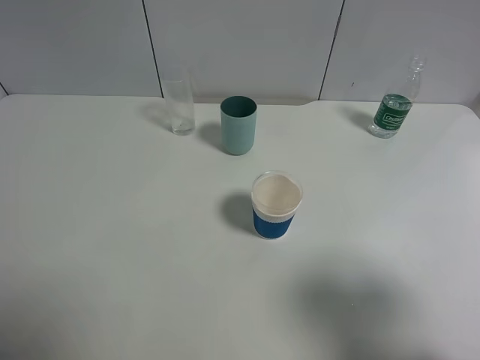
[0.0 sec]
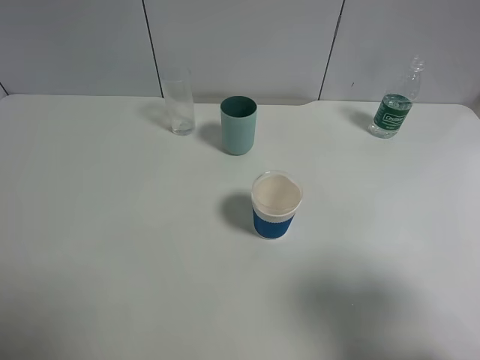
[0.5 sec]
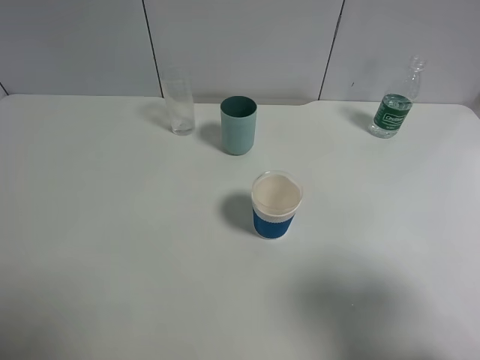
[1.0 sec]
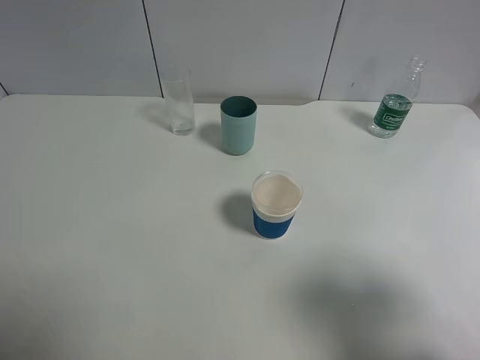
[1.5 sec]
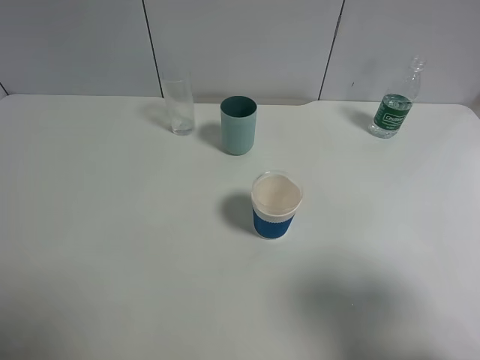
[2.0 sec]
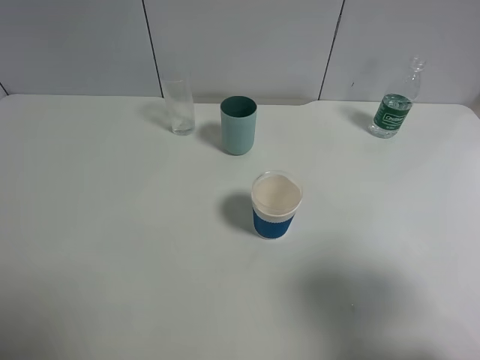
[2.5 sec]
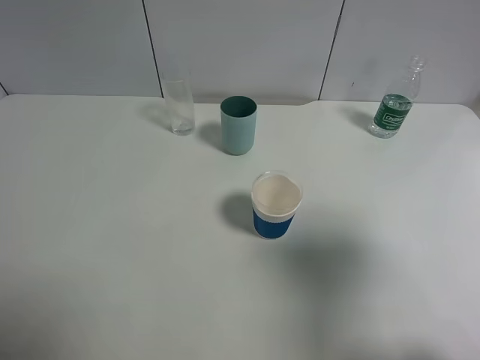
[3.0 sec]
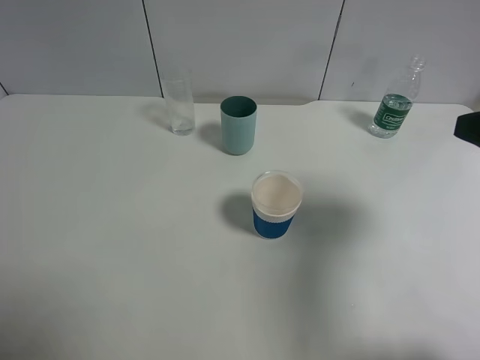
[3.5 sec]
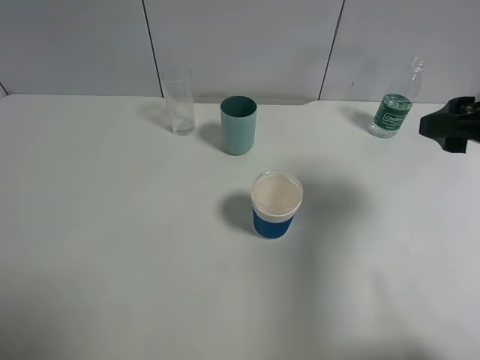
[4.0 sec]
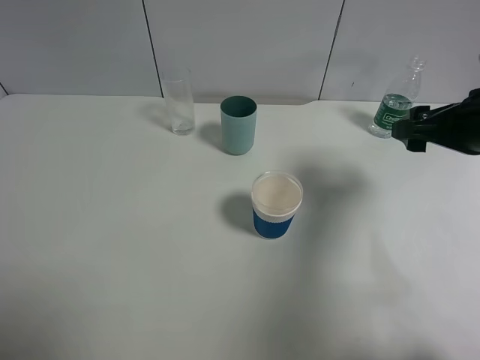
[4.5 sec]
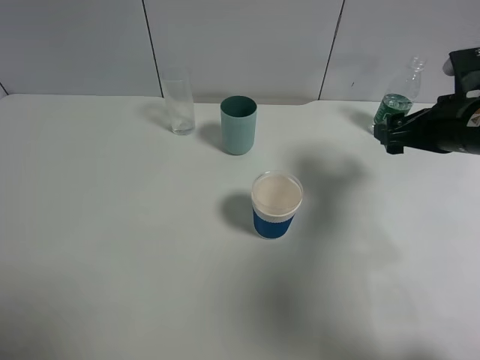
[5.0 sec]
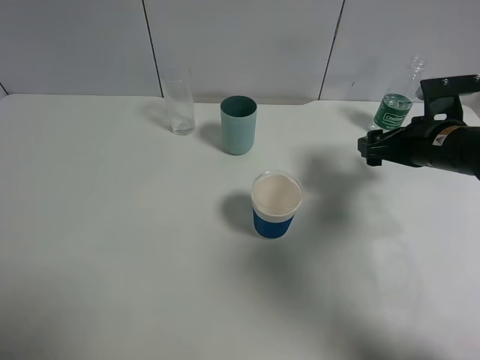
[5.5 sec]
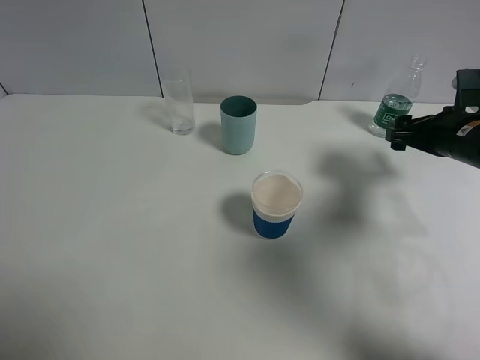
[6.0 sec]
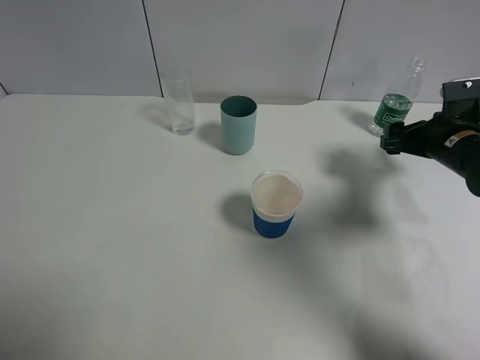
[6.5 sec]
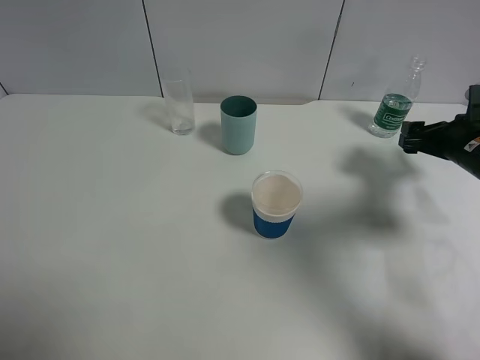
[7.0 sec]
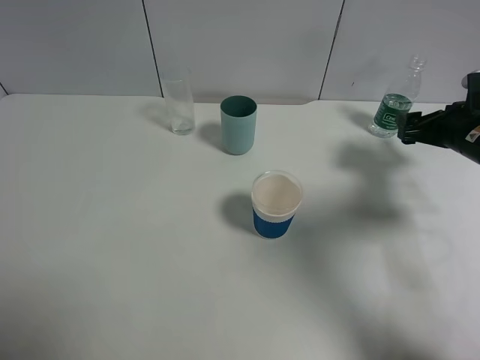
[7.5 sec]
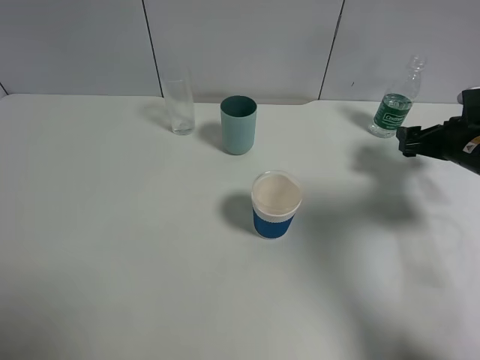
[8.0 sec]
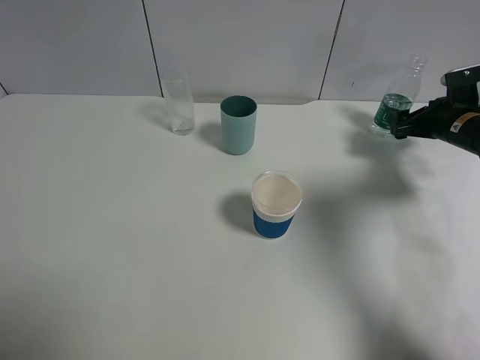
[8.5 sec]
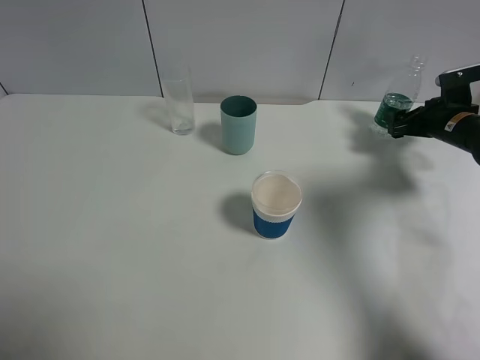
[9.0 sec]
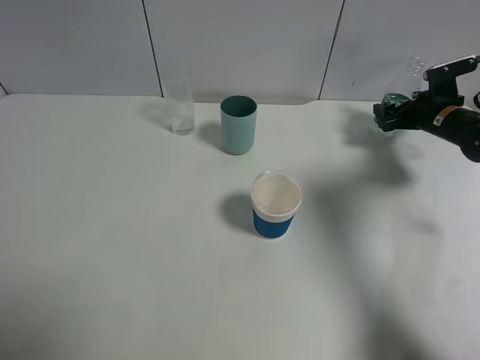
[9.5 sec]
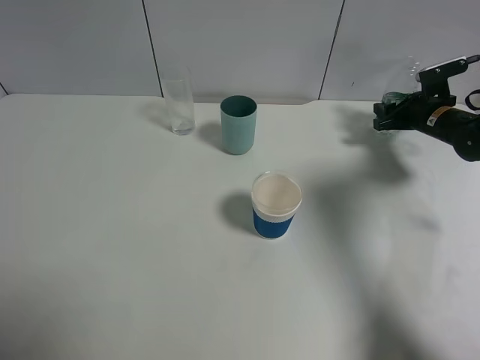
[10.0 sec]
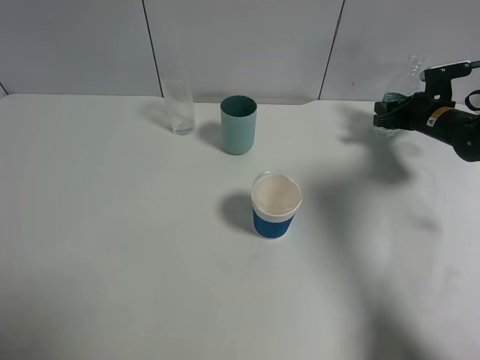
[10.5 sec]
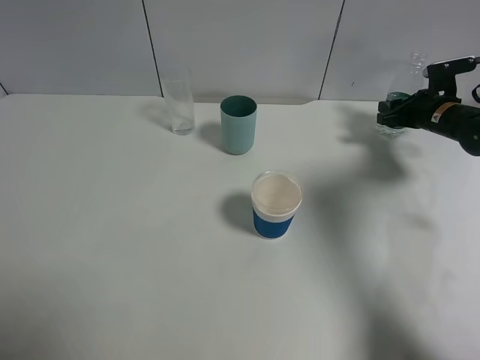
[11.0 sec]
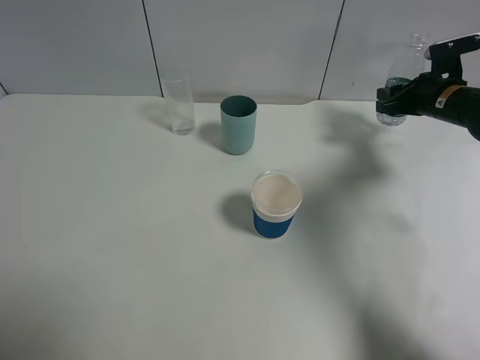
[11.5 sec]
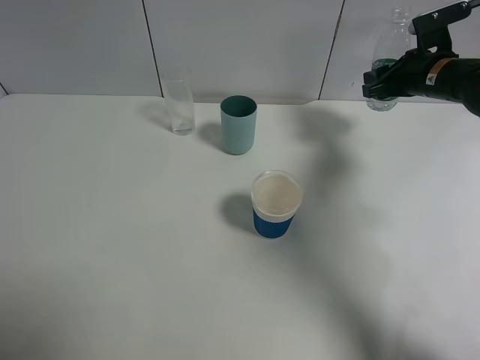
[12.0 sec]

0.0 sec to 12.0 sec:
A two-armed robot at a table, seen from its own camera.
Task of the whole recording: use a gripper to hold the bottle of the drink and pour it into a random cup.
Step, 0.0 sec to 10.0 sec: Grasp the mineral water bottle with the right gripper.
0.0 sec to 2.0 sec: Neither gripper changes place.
2.0 sec to 4.0 sec: The right gripper goes some 20 cm forward.
4.0 sec to 6.0 sec: The right gripper moves forward and downward, roughly 15 cm.
6.0 sec to 8.0 sec: The right gripper shifts some 10 cm to the right and downward.
8.0 sec to 10.0 sec: The right gripper shifts some 10 cm forward, and closes its fingers.
10.0 sec to 12.0 sec: The right gripper is displaced upward and to the left by some 10 cm.

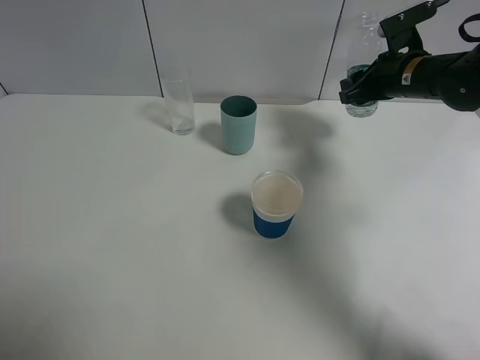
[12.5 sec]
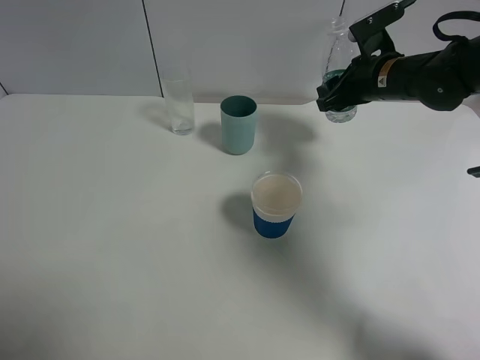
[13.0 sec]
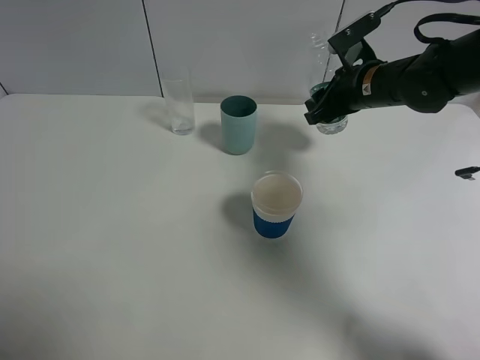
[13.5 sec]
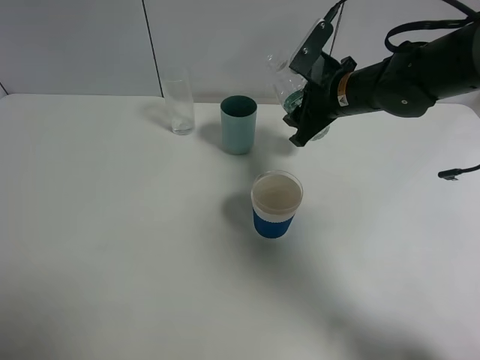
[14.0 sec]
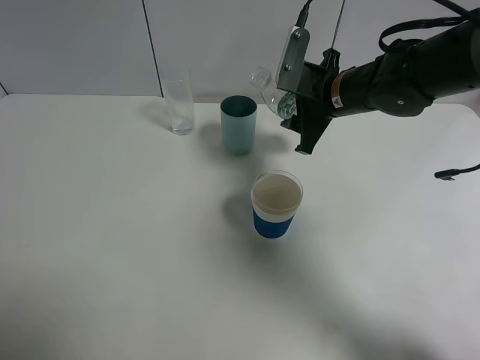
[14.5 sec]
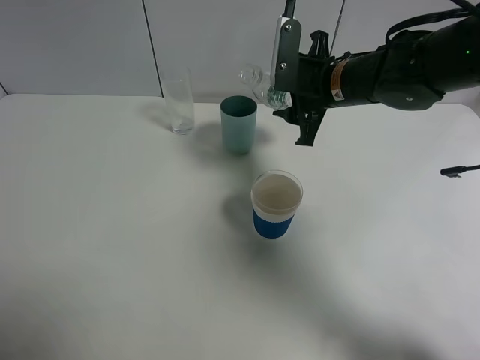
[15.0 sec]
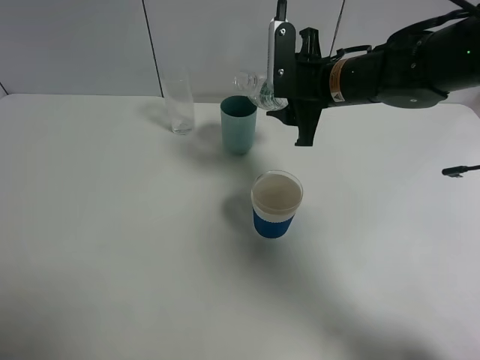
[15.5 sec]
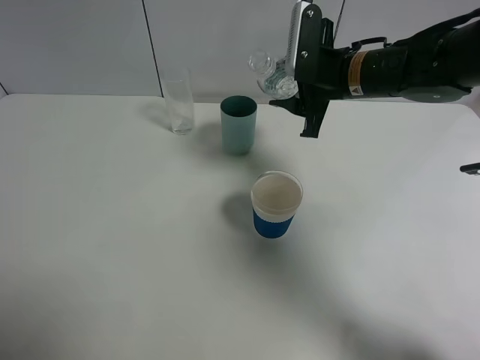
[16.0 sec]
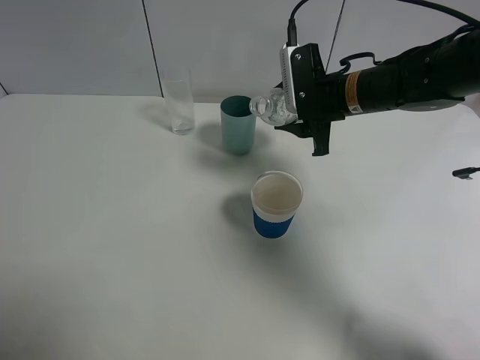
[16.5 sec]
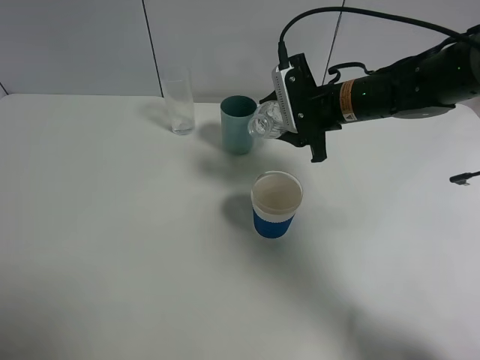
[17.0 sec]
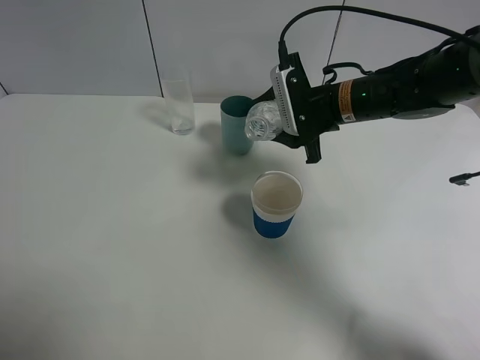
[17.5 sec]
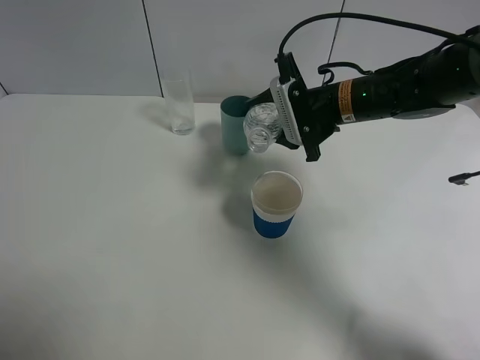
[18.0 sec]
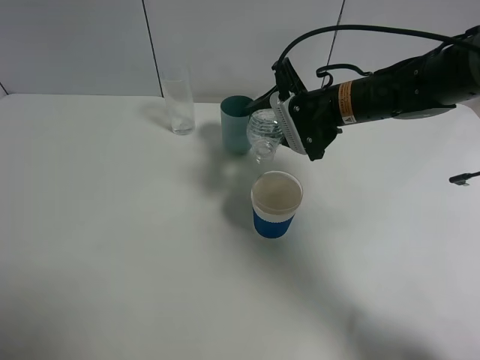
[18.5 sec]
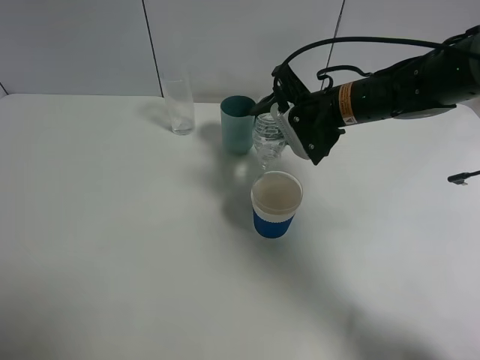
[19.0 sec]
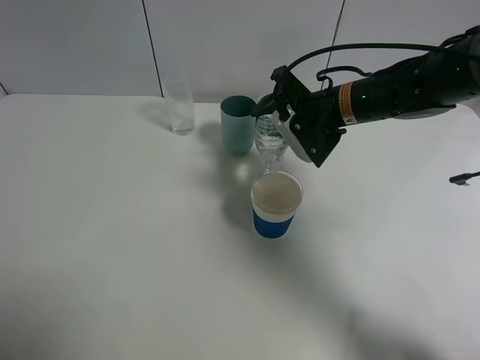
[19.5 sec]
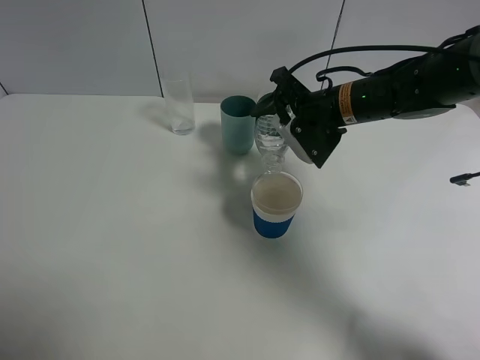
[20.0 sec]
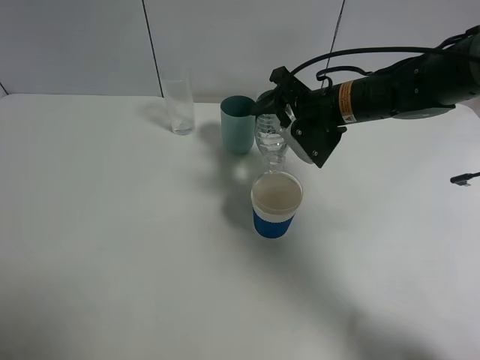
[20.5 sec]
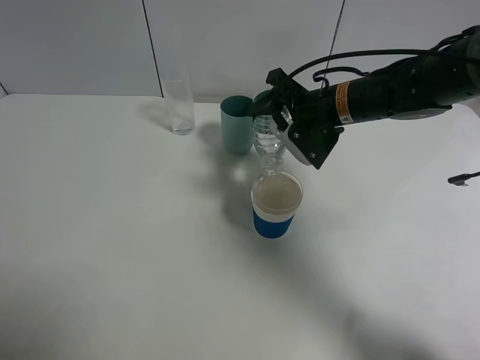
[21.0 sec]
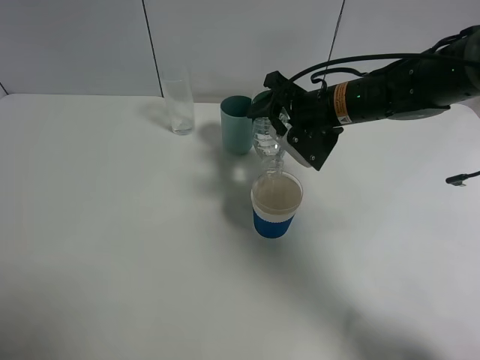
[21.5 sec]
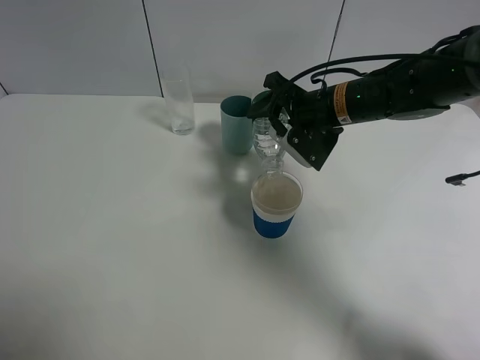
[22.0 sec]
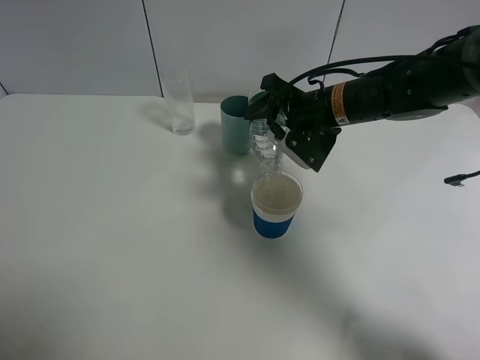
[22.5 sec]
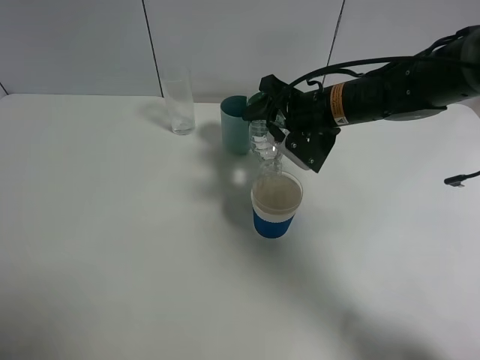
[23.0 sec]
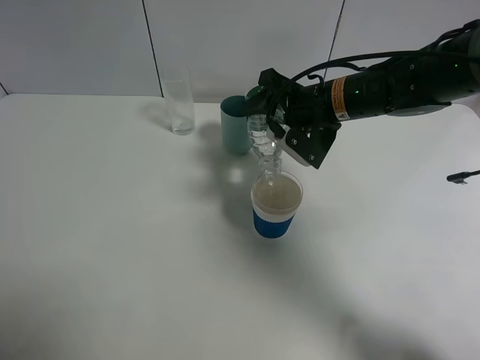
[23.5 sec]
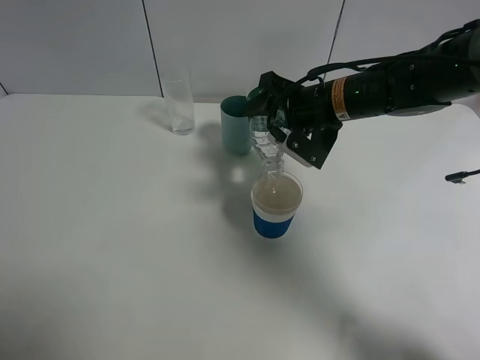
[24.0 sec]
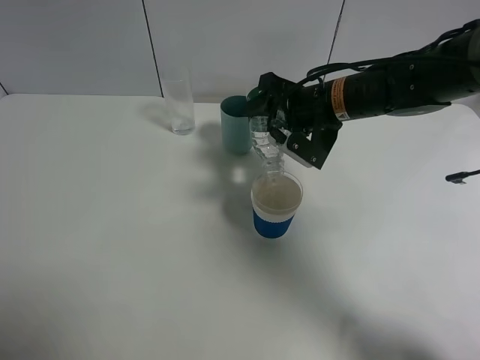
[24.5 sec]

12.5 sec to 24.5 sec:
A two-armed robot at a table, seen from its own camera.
Task of the whole recording: use a gripper to hold the bottle of the drink and pour it into a random cup.
12.5 sec to 14.5 sec: The right gripper goes roughly 10 cm to the left.
18.5 sec to 20.5 sec: There are only small adjustments of the grippers.
20.5 sec to 24.5 sec: The grippers make only small movements.

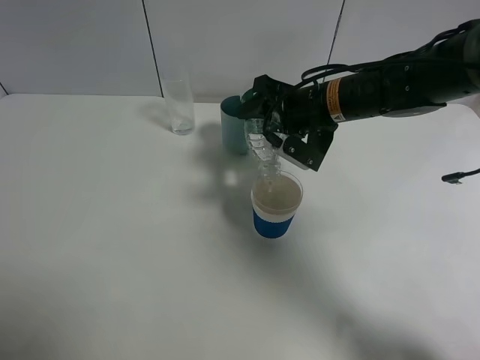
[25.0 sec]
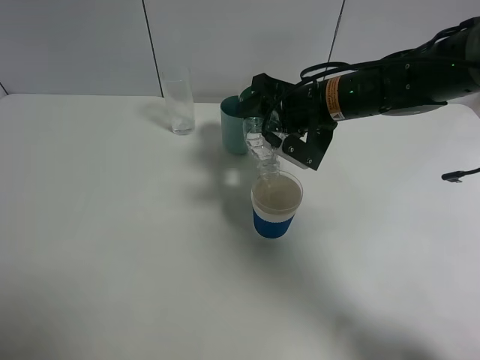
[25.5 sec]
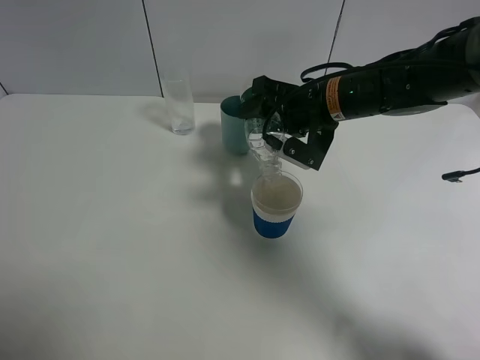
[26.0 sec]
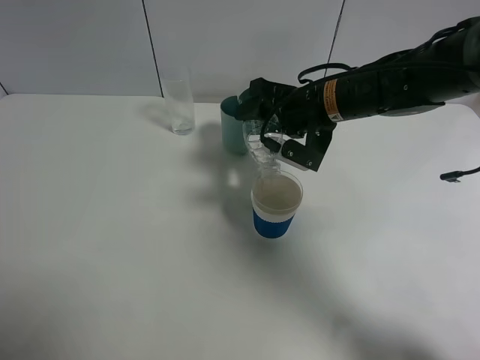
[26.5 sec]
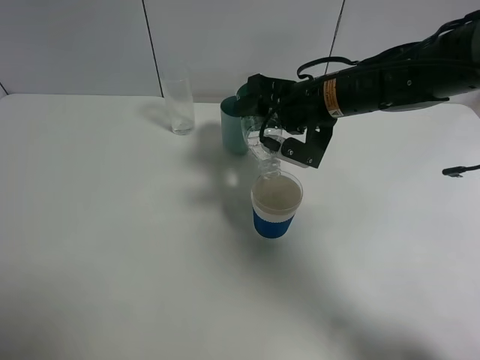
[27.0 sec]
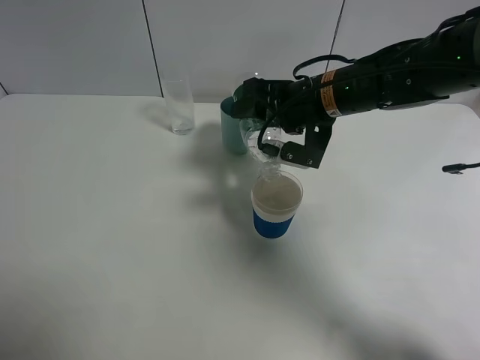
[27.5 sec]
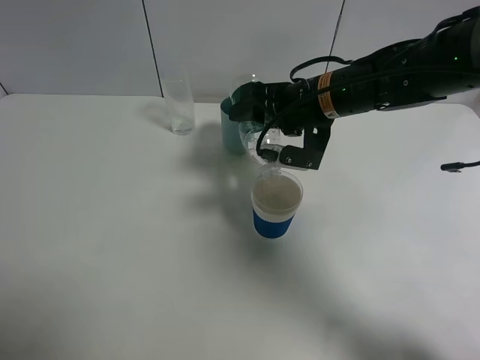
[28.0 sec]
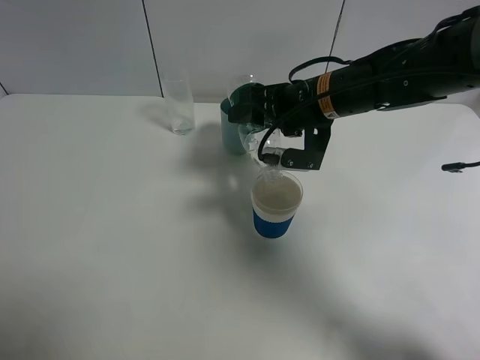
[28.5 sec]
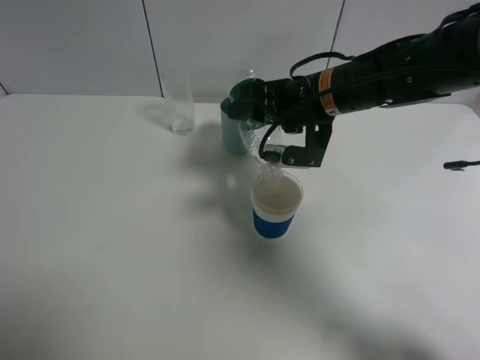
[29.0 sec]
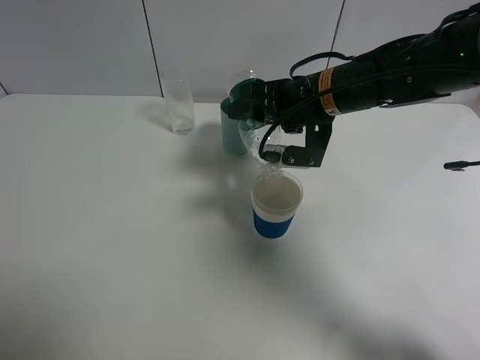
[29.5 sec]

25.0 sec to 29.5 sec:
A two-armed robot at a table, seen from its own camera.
Task of the whole recording: use a gripper to hold the bottle of the drink and pour it into a random cup.
25.0 sec to 29.5 sec: The grippers stay close to where they were, moving slightly.
